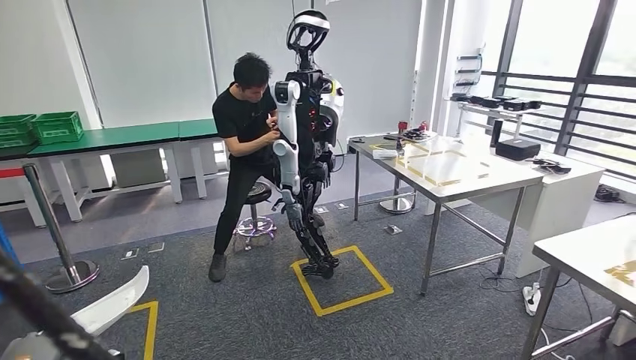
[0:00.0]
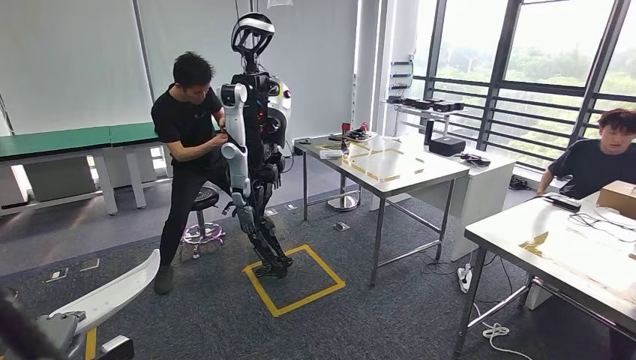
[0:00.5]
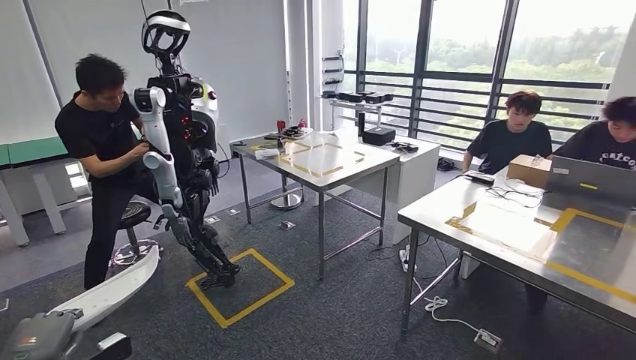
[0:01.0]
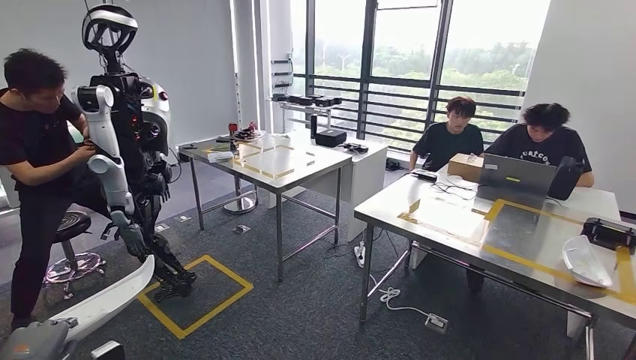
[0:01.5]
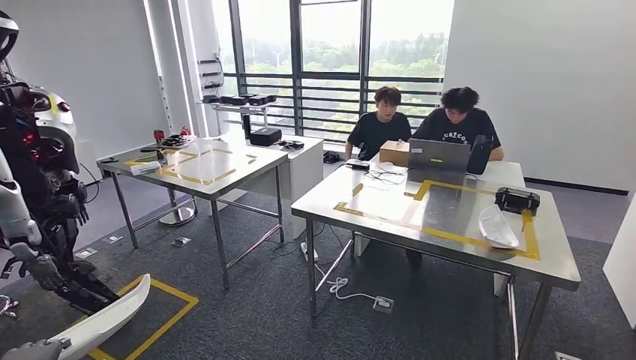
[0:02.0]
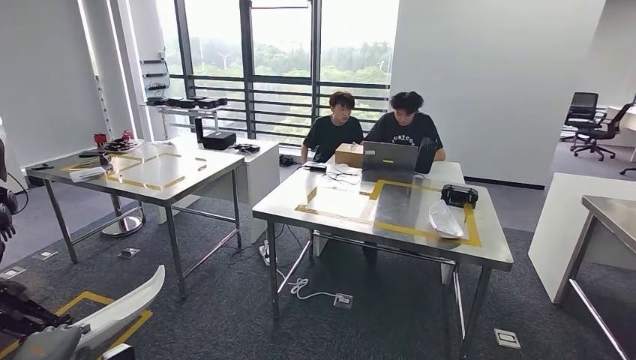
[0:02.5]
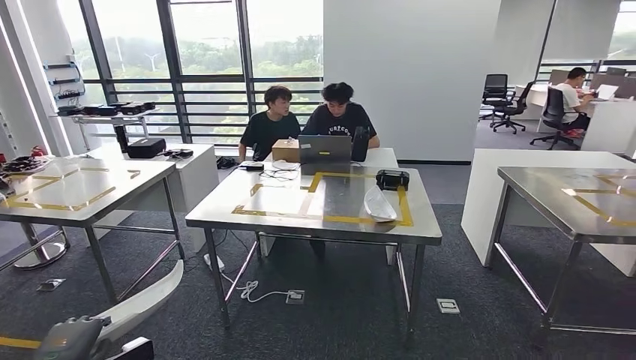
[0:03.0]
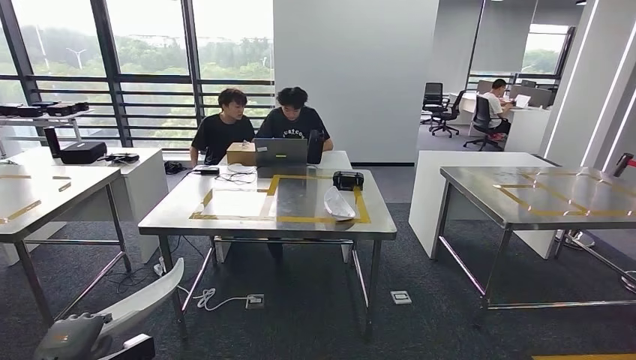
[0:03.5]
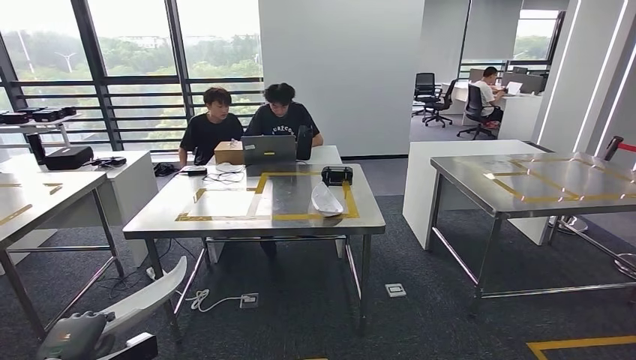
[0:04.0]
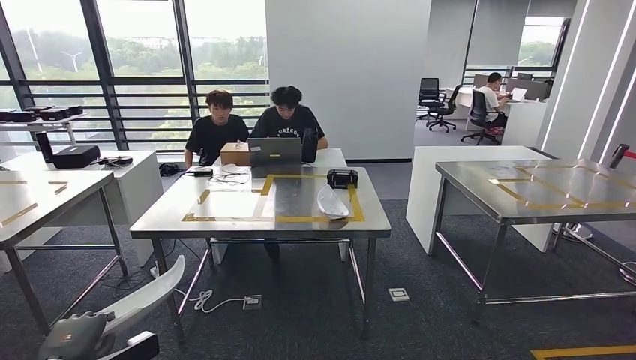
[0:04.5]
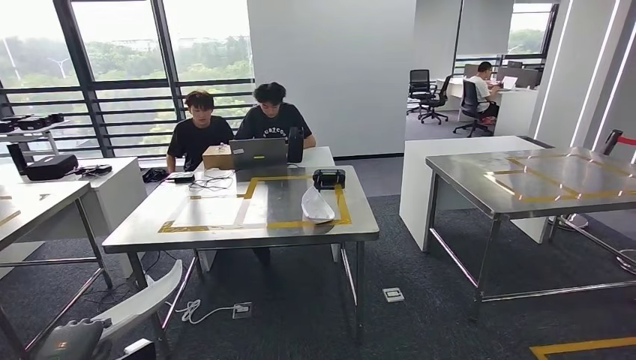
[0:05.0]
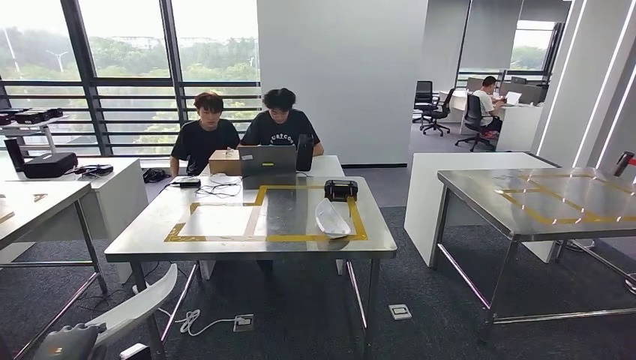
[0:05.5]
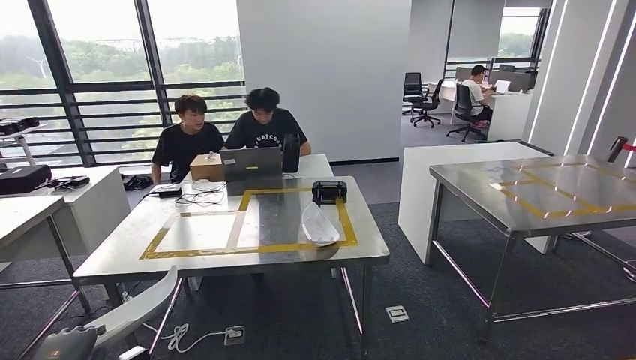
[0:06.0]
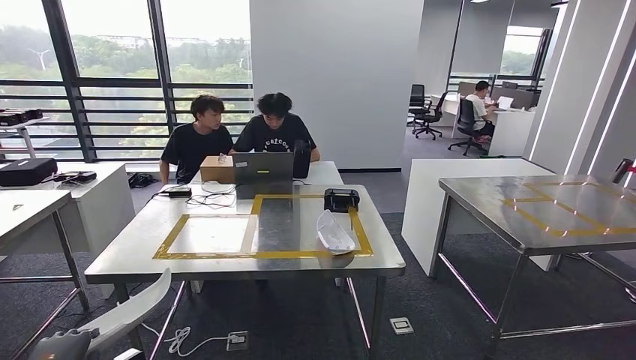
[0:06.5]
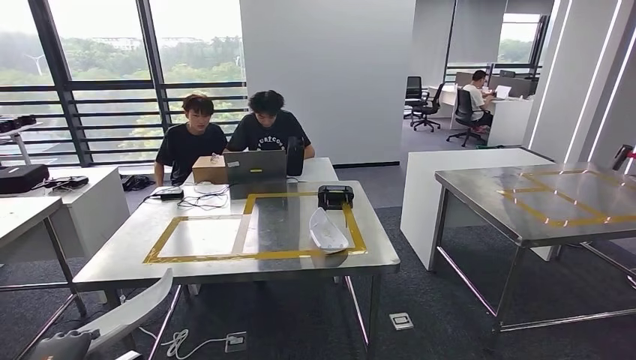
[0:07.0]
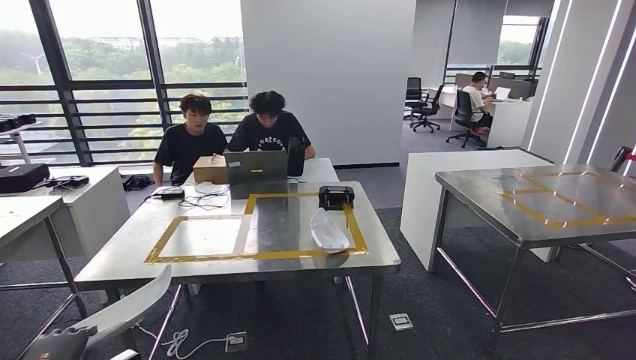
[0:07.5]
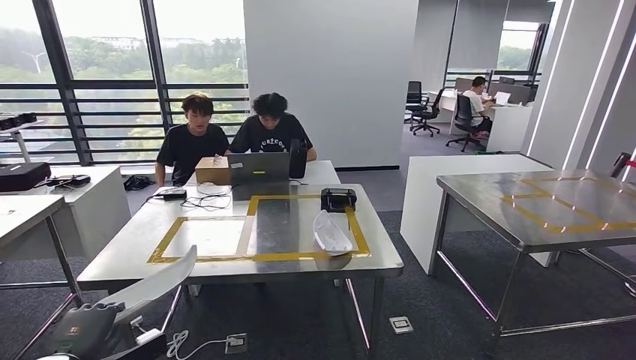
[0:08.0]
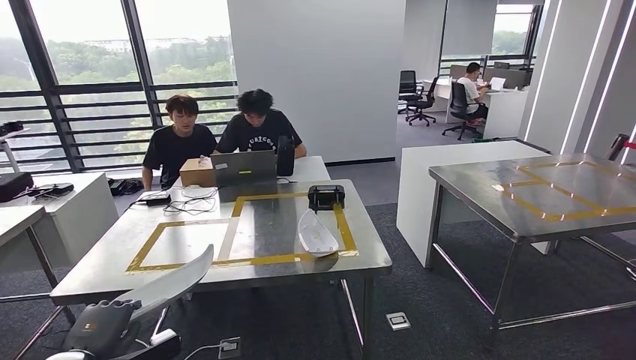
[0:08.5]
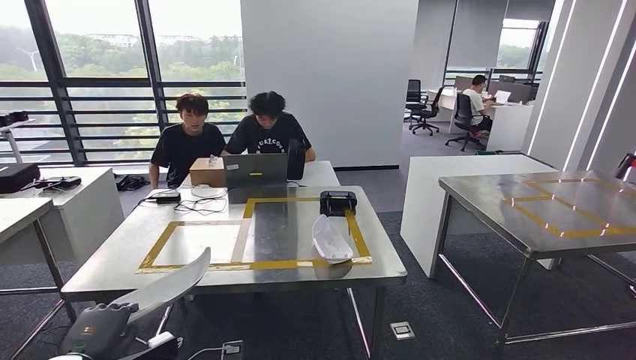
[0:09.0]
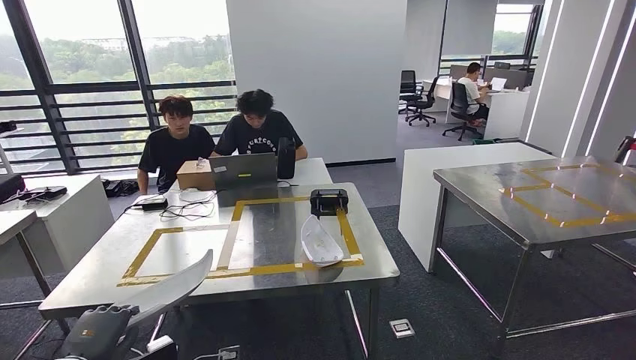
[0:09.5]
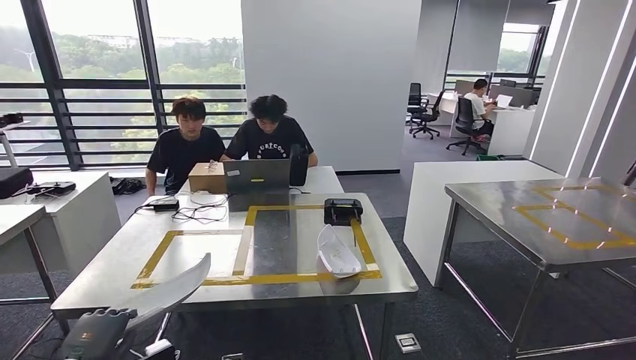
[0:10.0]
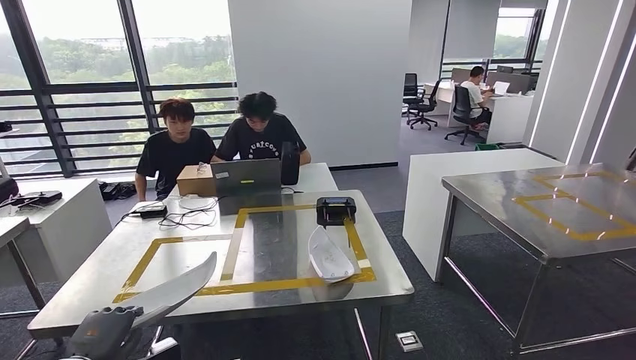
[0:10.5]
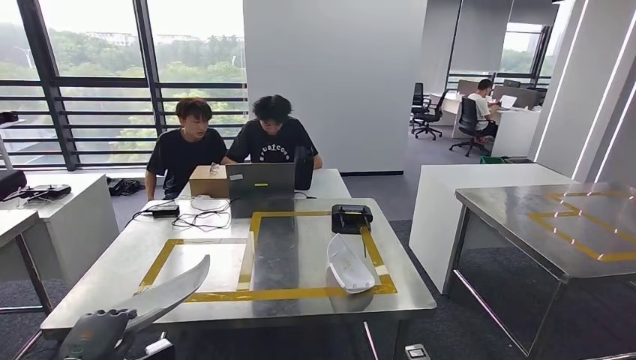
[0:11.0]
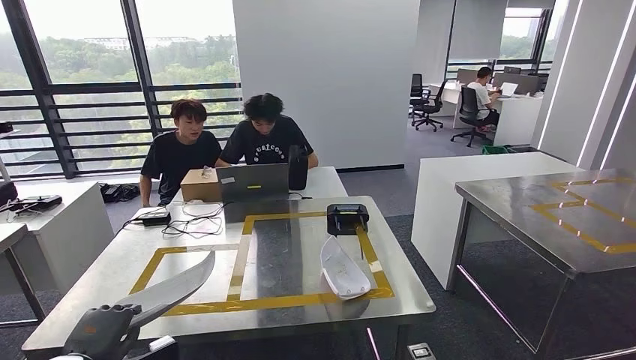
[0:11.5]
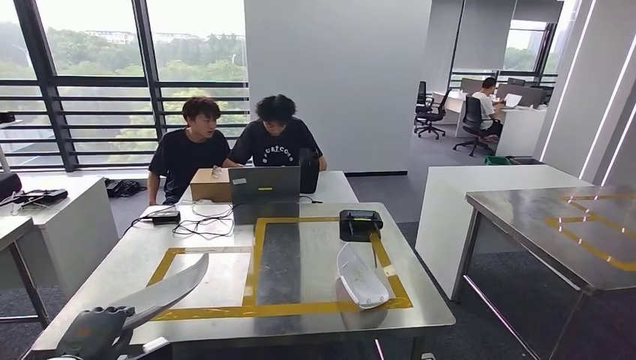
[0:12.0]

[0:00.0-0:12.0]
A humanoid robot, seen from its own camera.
Step, 0:00.0 to 0:03.0: Move the small component to the workbench.

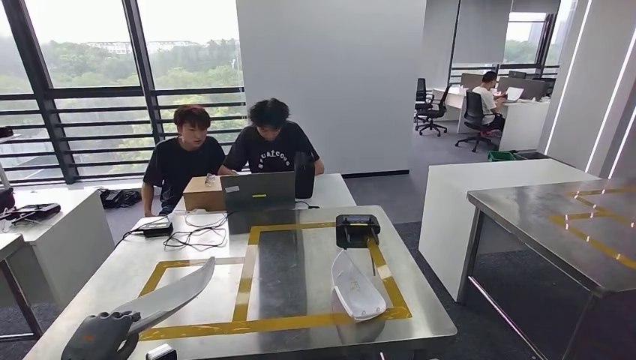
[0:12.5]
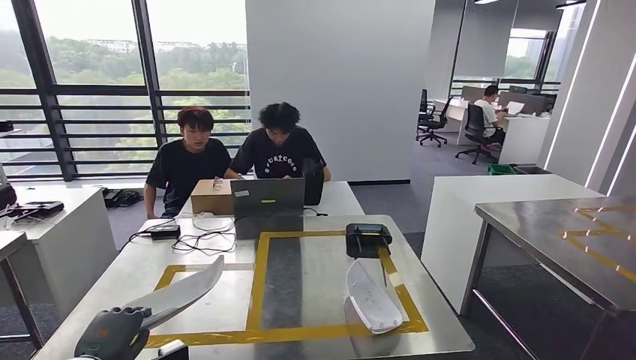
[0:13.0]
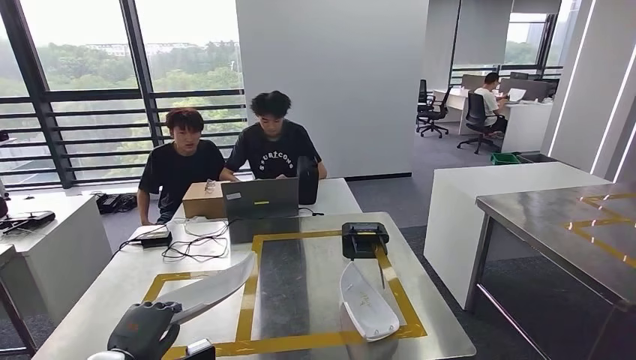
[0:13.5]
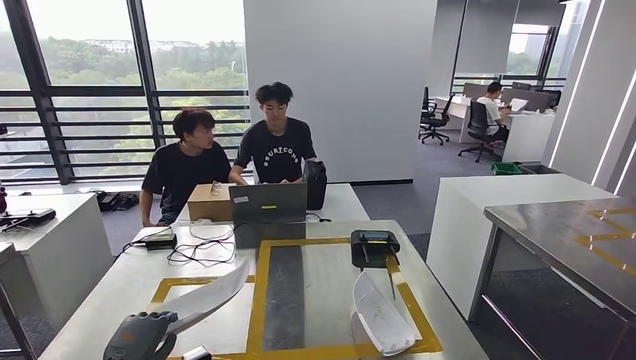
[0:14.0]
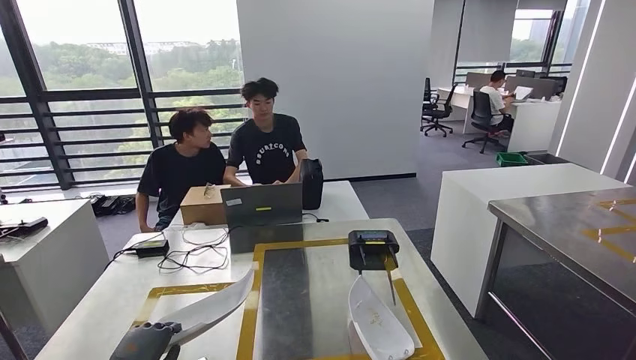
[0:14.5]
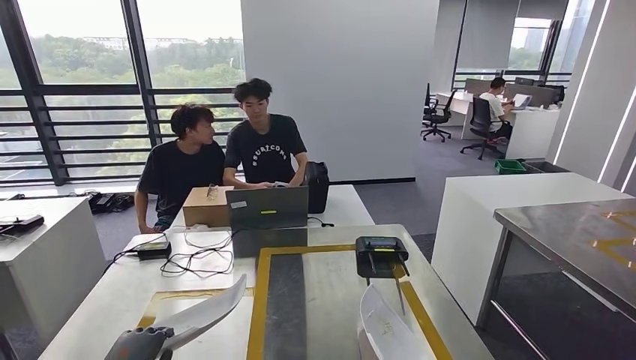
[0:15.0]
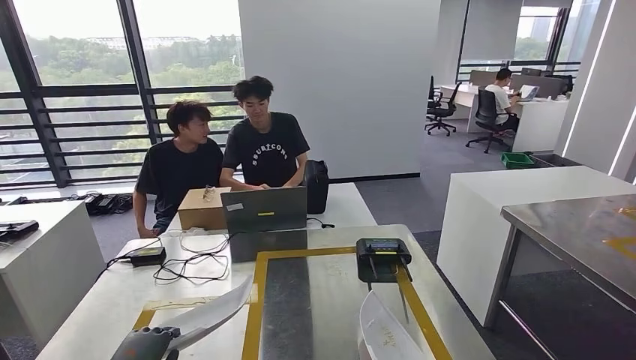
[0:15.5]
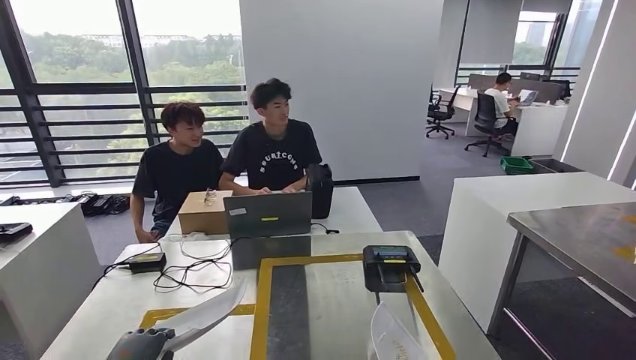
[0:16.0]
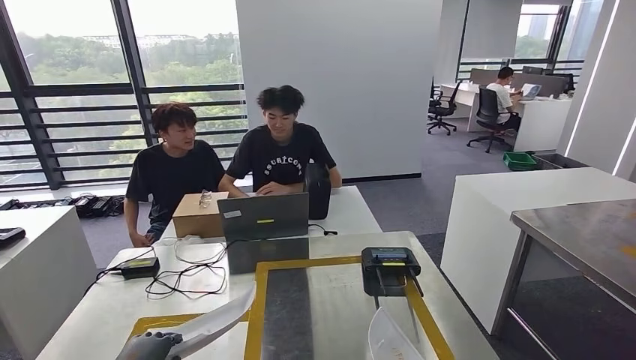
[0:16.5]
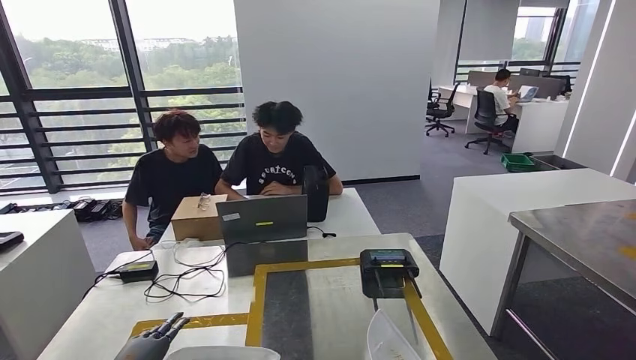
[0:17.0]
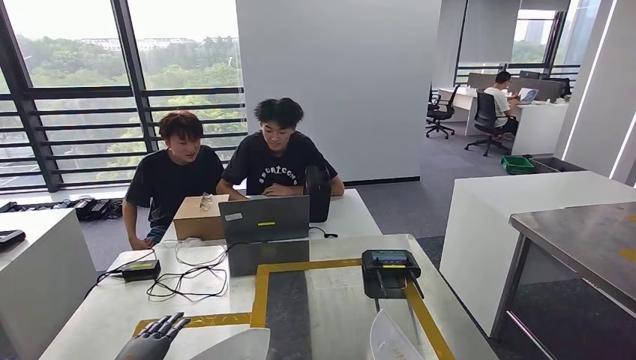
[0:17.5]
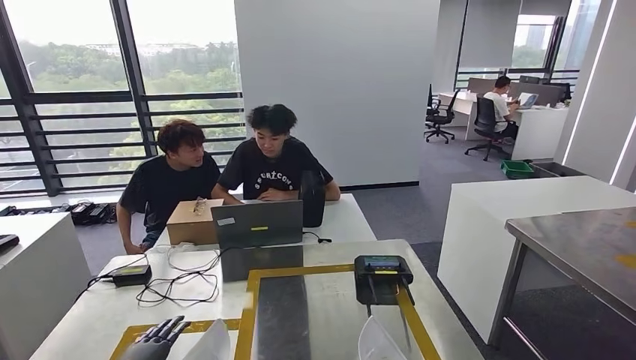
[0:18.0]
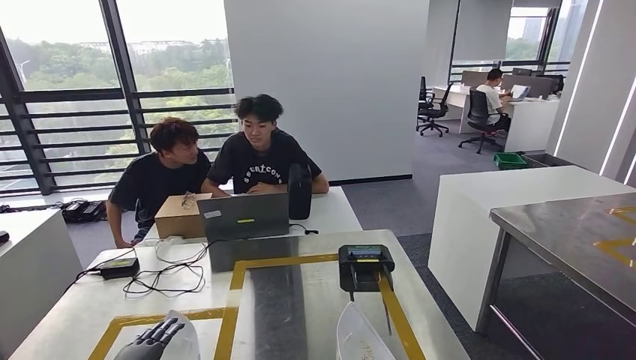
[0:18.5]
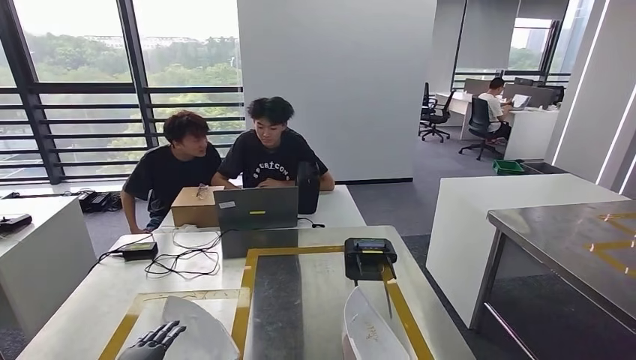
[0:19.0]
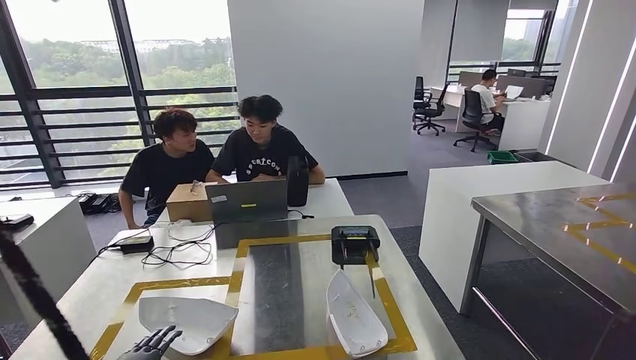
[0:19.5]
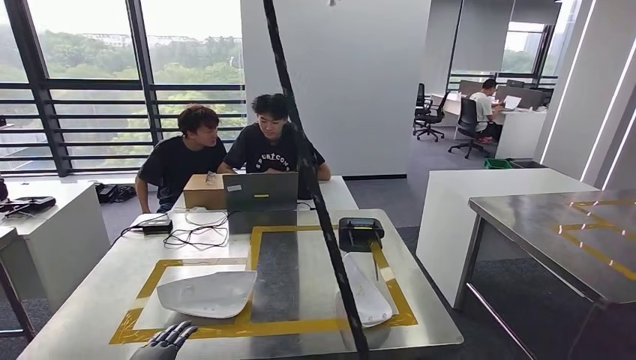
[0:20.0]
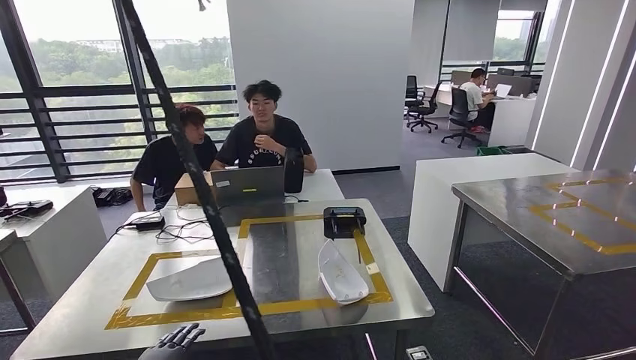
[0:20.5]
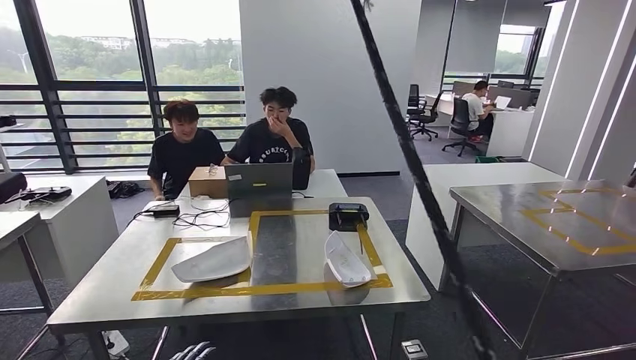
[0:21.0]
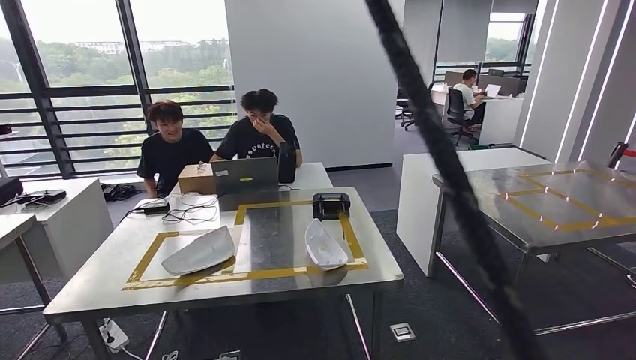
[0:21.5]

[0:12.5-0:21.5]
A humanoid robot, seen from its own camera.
Step, 0:12.5 to 0:18.0: Insert the small component into the corresponding slot on the workbench.
Step, 0:19.0 to 0:21.5: Return to the initial position at the workbench.
